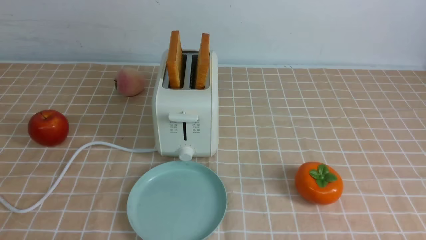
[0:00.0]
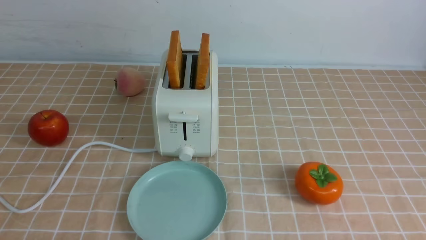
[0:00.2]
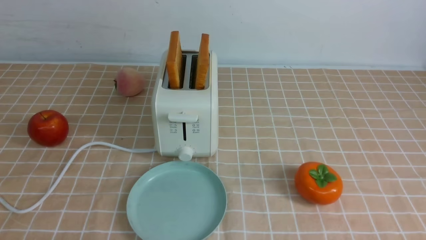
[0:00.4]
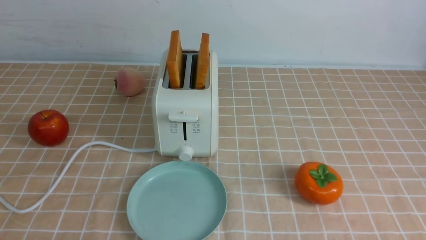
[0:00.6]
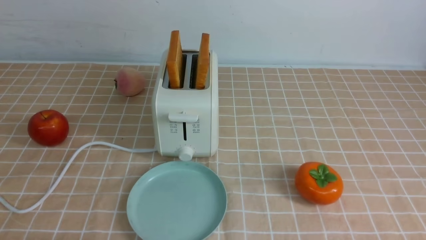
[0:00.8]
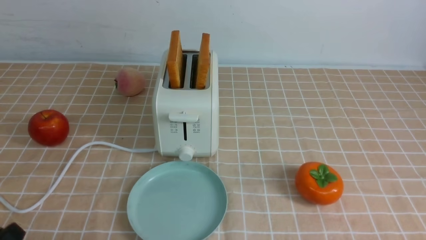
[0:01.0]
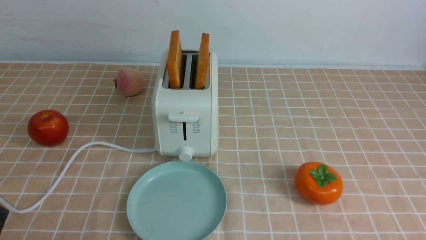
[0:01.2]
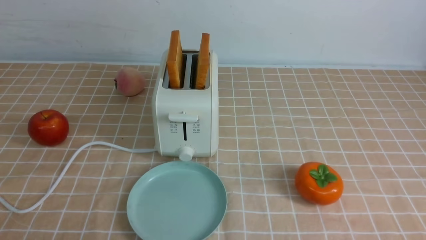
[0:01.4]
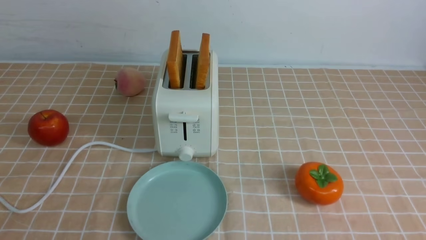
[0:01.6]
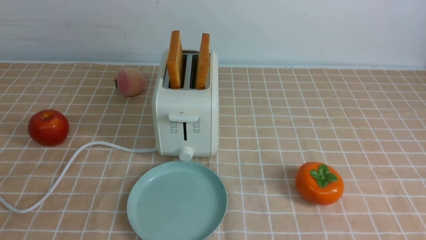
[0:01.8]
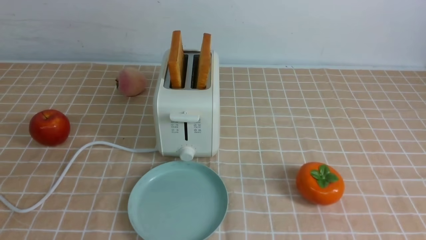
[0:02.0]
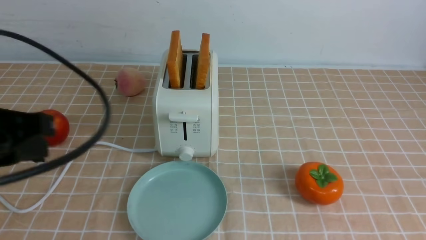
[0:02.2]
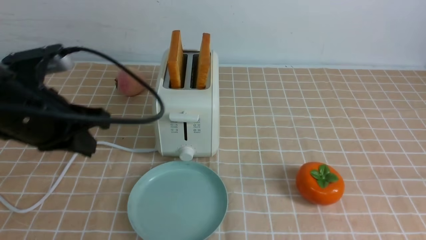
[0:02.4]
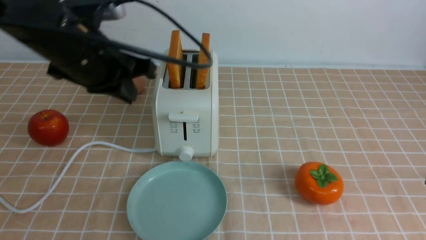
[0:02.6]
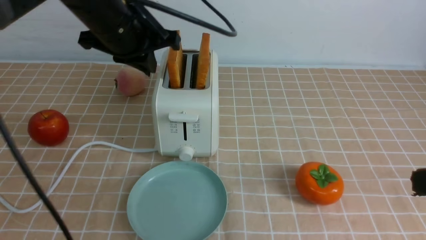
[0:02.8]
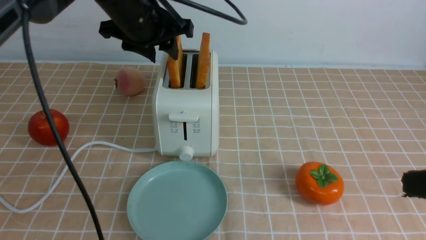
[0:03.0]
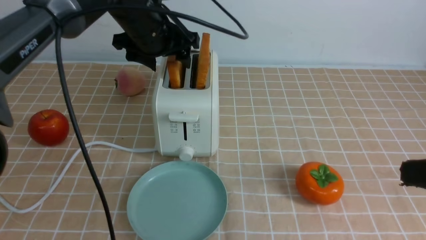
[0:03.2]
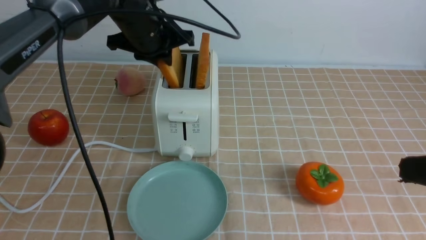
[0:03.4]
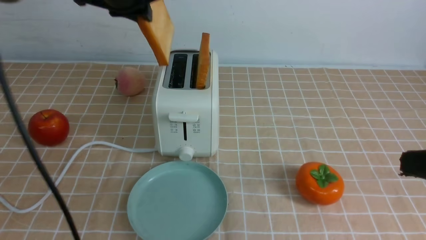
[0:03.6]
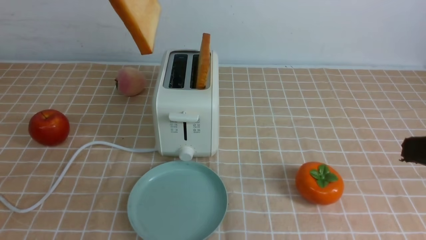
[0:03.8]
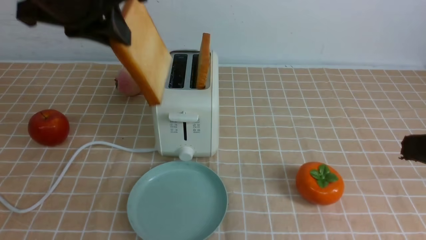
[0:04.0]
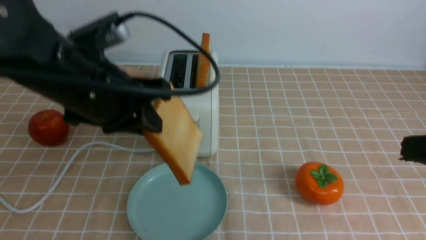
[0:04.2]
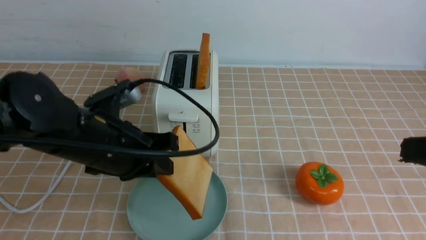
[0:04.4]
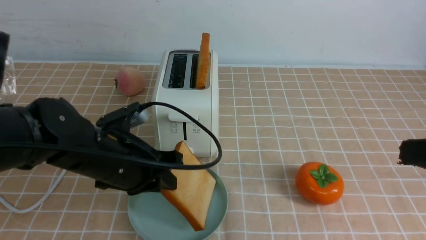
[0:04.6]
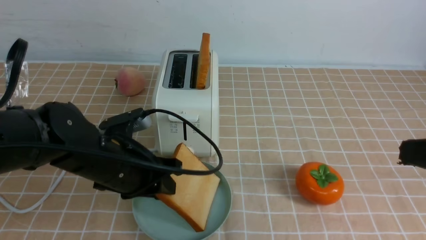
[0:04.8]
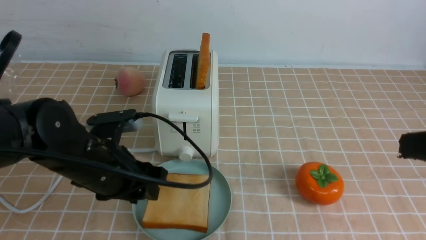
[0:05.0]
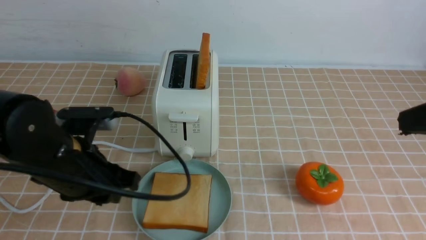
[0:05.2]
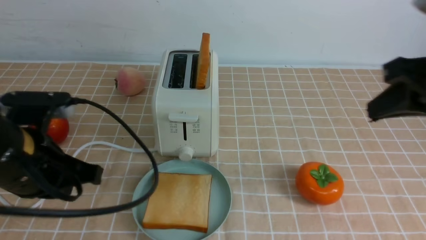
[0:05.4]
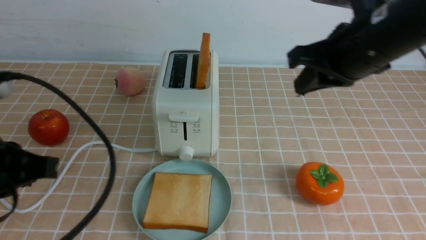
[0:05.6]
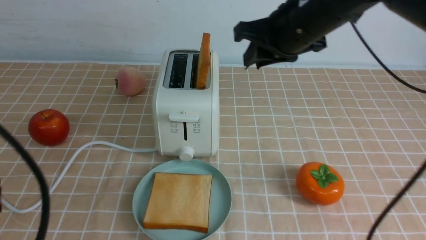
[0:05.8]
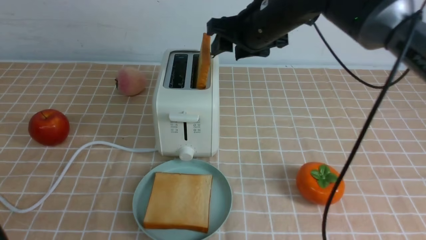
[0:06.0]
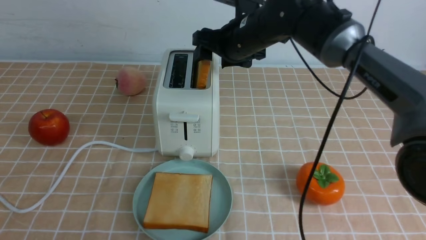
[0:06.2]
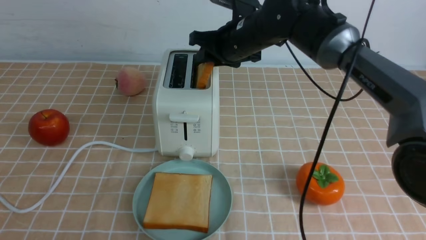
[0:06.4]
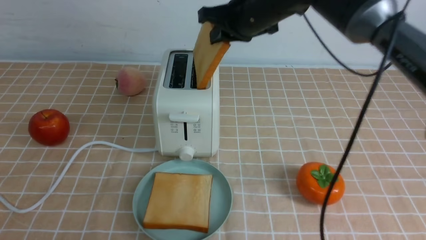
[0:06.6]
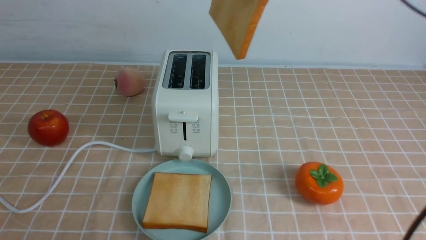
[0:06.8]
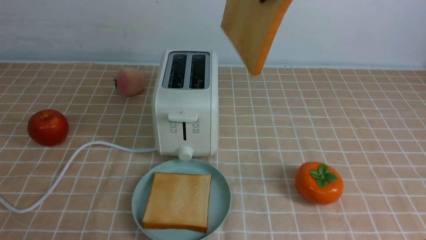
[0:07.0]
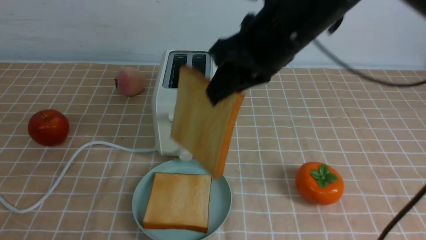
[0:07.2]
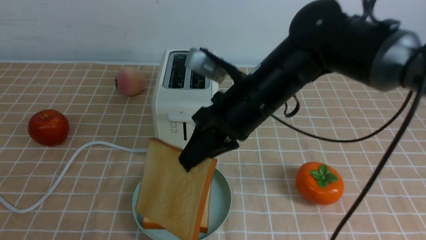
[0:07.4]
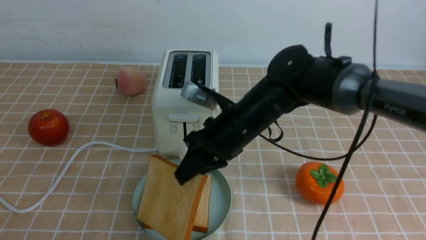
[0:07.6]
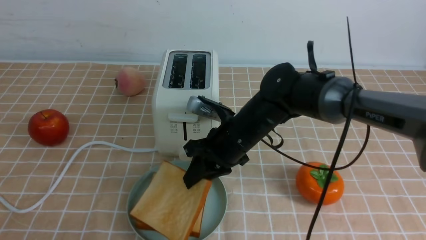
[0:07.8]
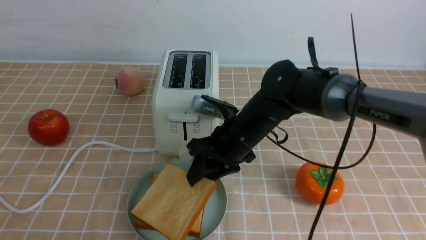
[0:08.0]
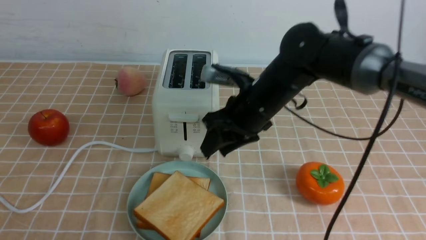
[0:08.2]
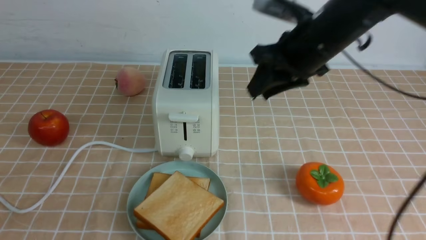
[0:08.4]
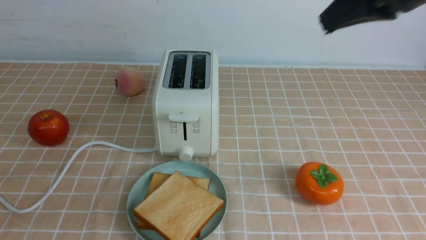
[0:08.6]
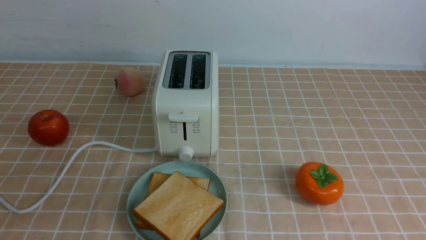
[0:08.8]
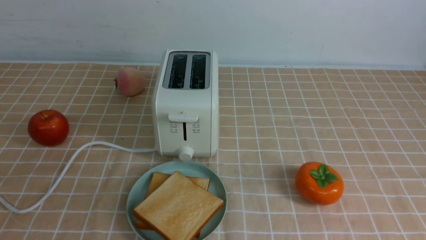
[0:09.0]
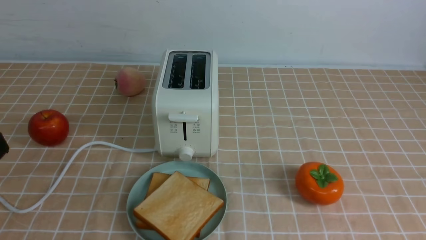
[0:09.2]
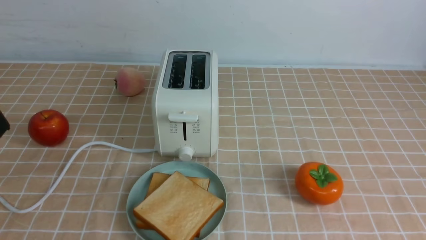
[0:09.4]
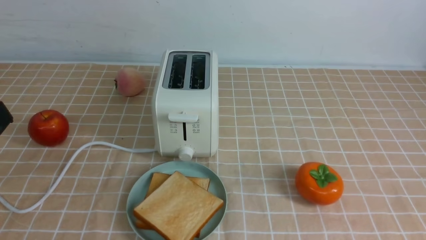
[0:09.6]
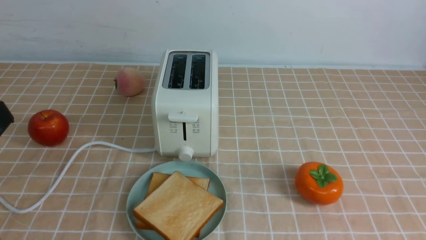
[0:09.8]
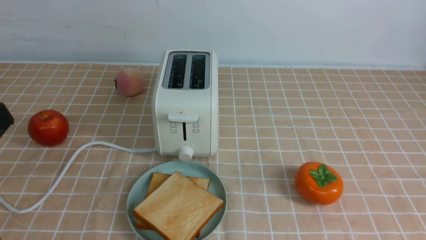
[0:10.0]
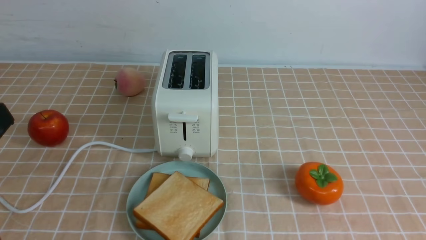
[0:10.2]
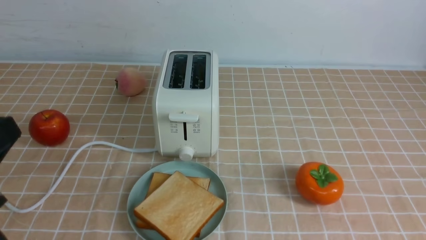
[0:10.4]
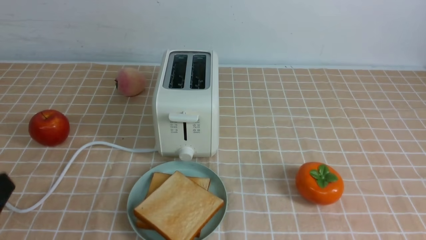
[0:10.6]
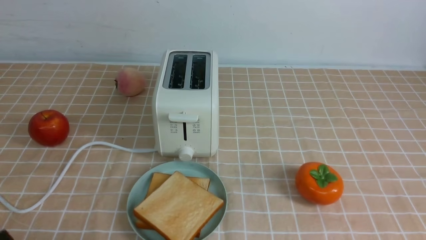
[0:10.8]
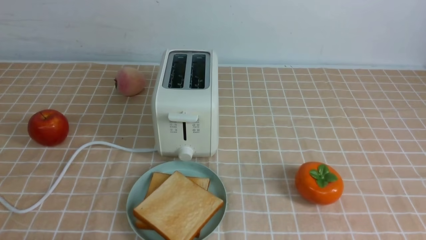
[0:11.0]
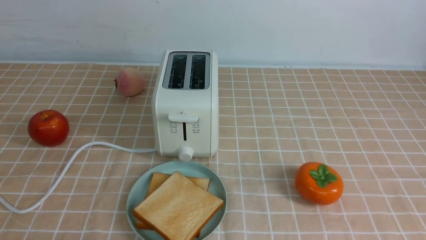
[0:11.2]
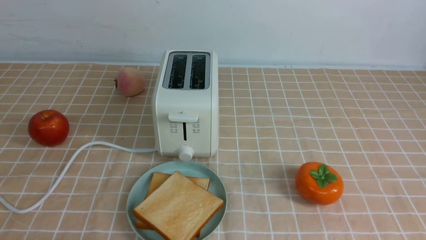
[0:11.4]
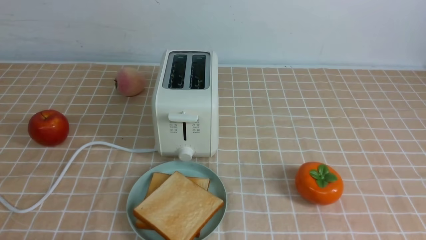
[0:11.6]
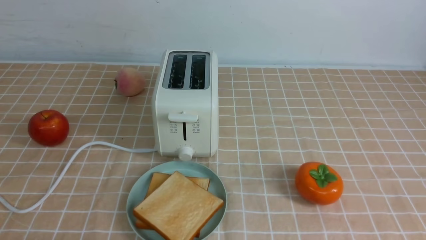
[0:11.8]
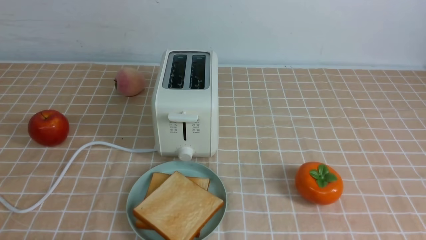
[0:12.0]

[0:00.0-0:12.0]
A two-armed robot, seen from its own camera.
Task of the whole recording: take toasted bread from bread machine on light coffee tablecloth place on plate.
Step, 0:00.0 to 0:03.4: use the left arm to take out a slice of bread.
Step, 0:03.8 to 0:05.2: use the left arm to put a slice of bread into the empty plate.
Step, 0:05.4 to 0:06.6: use the right arm to take out a slice of bread.
Step, 0:06.8 to 0:08.0: use the right arm to put a slice of bread into the plate.
0:01.6 to 0:03.0: The left gripper is displaced forward by approximately 35 cm, and opens up, while the right gripper shifts about 15 cm upward and forward, and closes up.
0:03.0 to 0:04.4: The left gripper goes roughly 15 cm backward and downward, and closes up.
0:04.4 to 0:06.0: The right gripper travels forward and to the left by roughly 35 cm, and opens. The left gripper travels backward and to the left by about 25 cm, and opens and closes again.
0:06.0 to 0:07.6: The right gripper moves downward and backward, some 15 cm, and closes its fingers.
0:07.6 to 0:09.0: The right gripper travels backward, to the right and upward by some 40 cm, and opens and closes again.
0:10.4 to 0:12.0: The left gripper travels downward by about 15 cm.

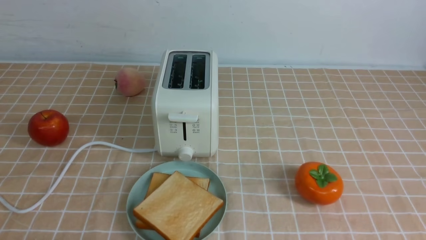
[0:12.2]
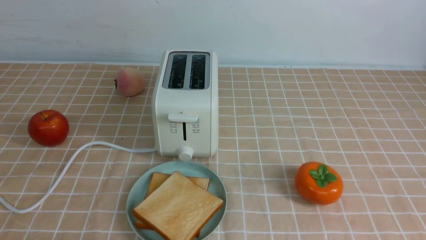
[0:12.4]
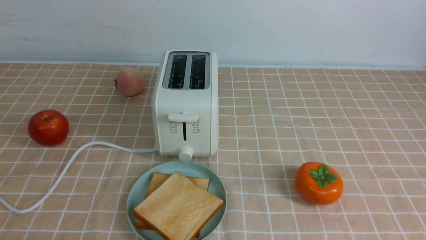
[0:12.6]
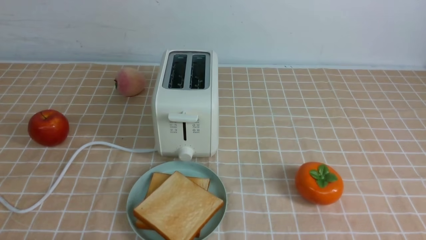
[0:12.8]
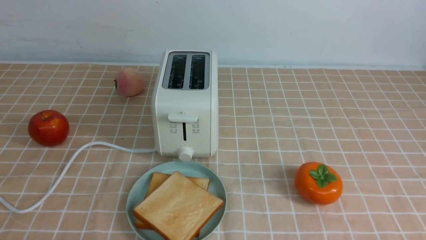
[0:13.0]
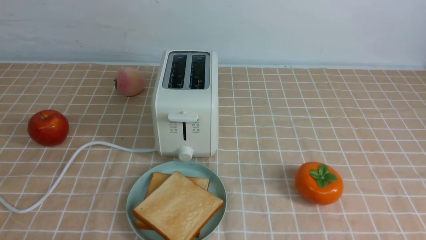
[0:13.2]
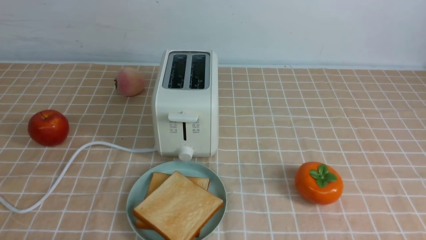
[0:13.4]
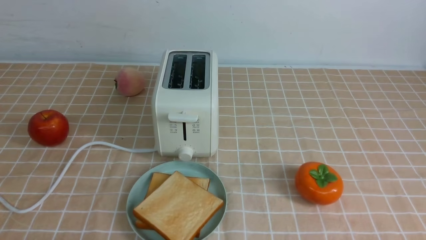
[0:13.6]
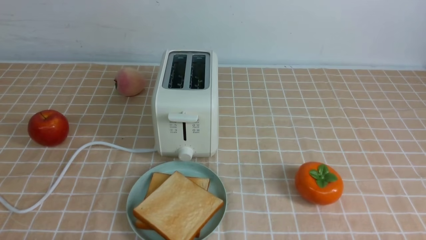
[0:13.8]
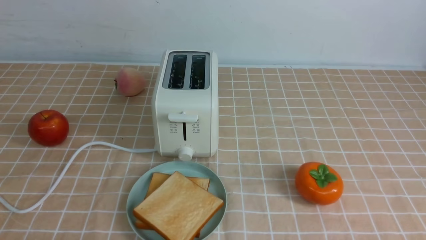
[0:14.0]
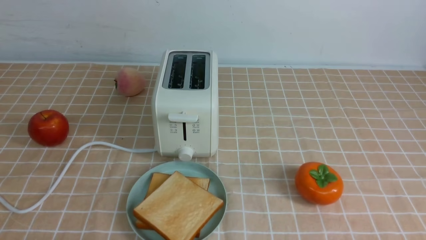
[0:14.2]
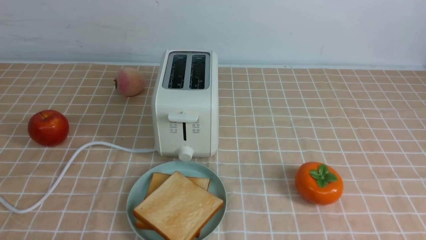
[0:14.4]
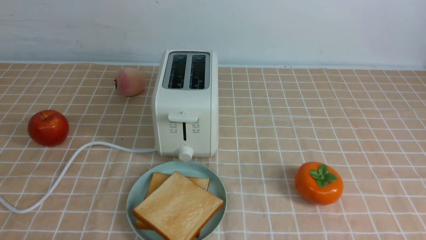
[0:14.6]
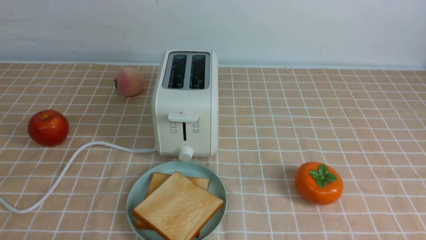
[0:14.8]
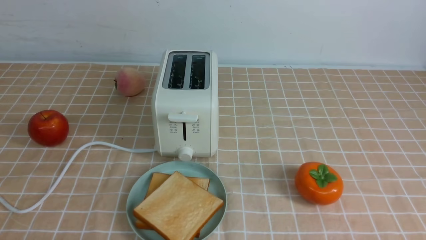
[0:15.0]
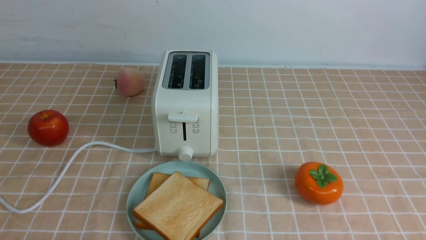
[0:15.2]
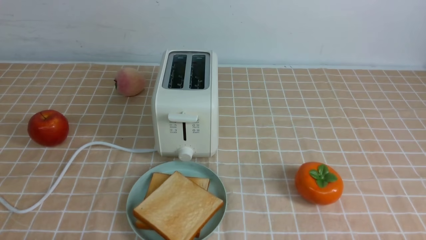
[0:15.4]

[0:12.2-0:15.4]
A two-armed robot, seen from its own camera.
Task of the whole recording: take toasted bread from bread machine on light coffee tablecloth place on plate.
0:13.8 to 0:15.4: Both grippers stay put.
